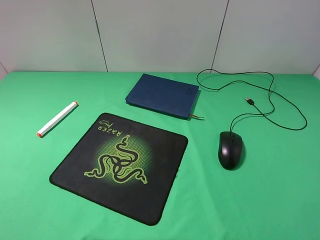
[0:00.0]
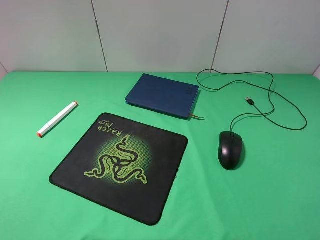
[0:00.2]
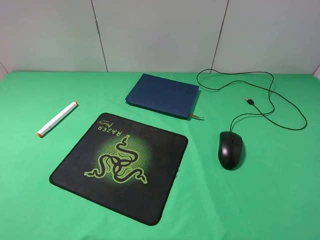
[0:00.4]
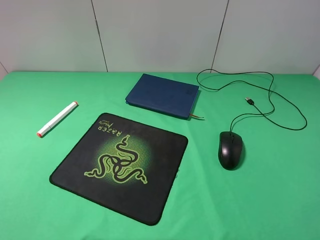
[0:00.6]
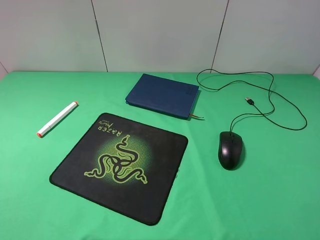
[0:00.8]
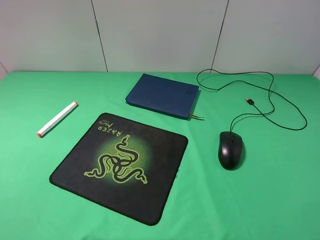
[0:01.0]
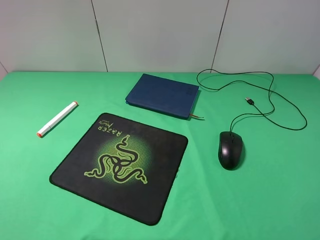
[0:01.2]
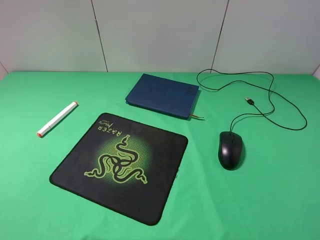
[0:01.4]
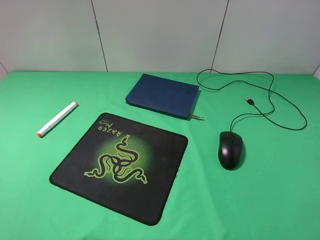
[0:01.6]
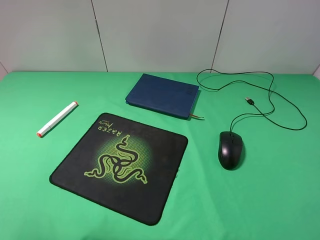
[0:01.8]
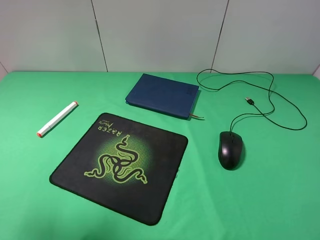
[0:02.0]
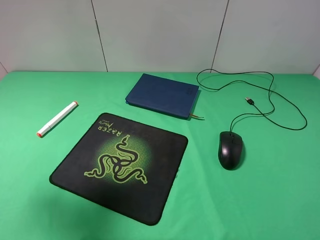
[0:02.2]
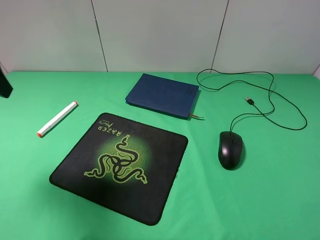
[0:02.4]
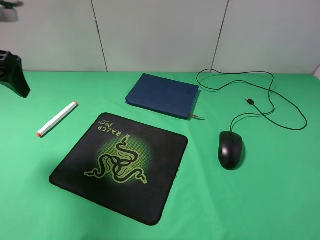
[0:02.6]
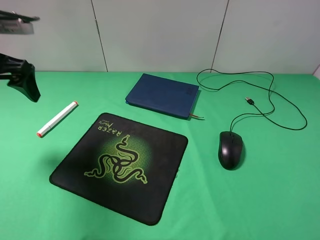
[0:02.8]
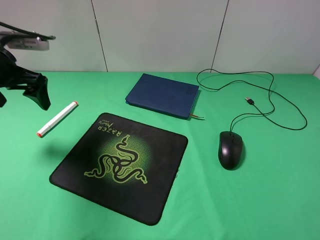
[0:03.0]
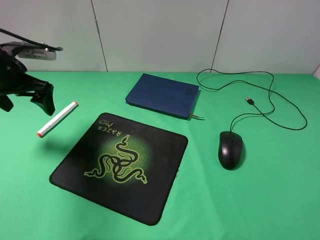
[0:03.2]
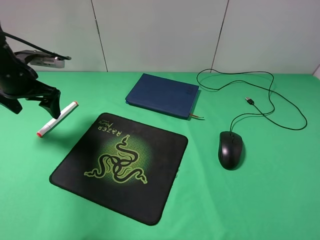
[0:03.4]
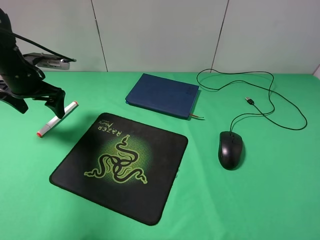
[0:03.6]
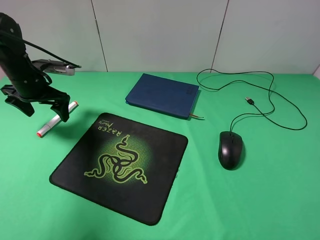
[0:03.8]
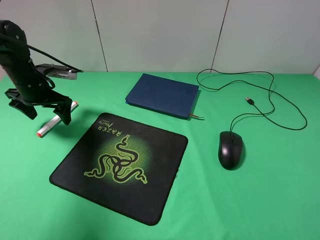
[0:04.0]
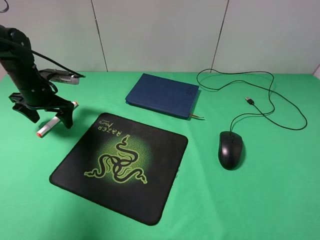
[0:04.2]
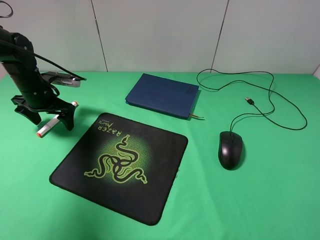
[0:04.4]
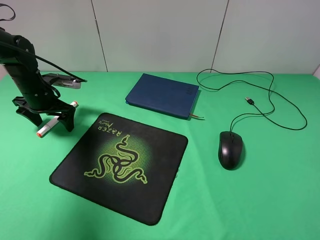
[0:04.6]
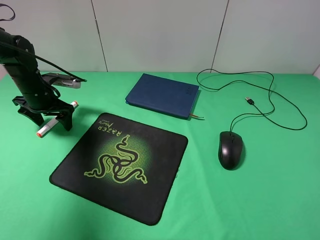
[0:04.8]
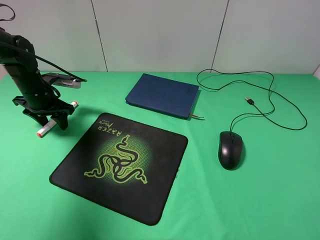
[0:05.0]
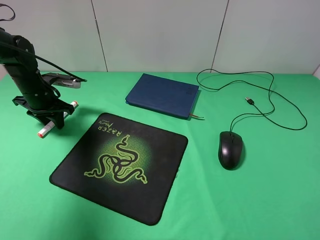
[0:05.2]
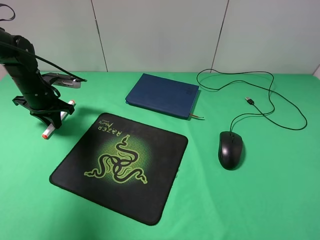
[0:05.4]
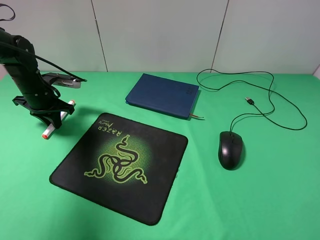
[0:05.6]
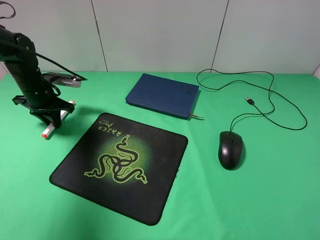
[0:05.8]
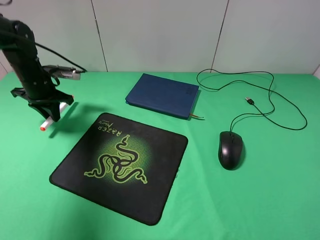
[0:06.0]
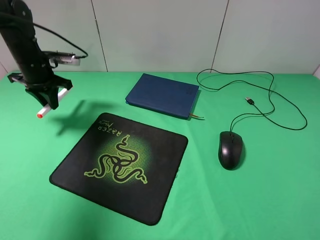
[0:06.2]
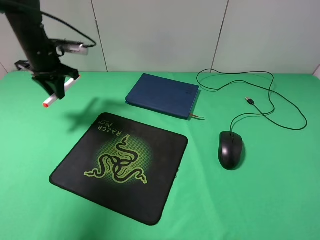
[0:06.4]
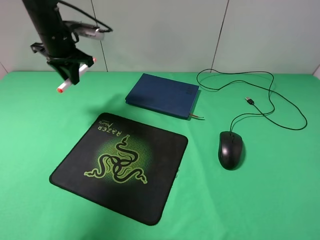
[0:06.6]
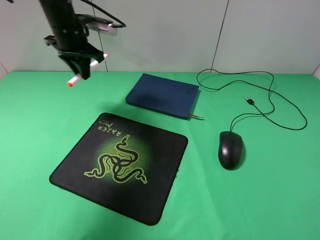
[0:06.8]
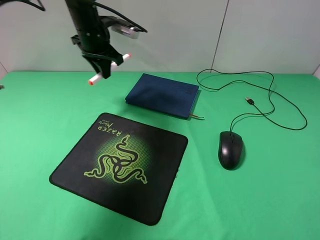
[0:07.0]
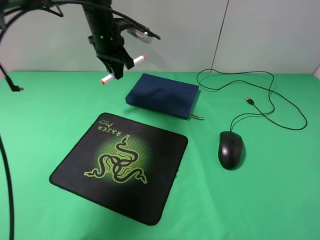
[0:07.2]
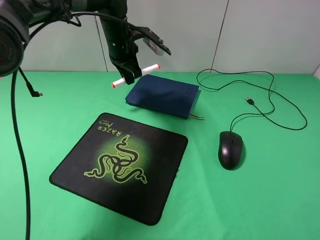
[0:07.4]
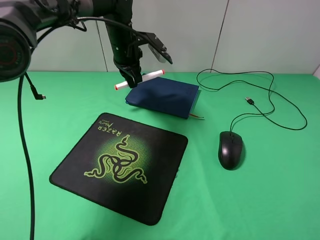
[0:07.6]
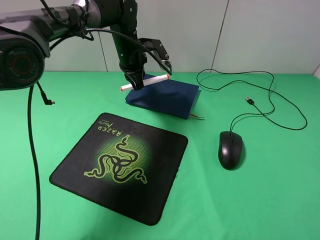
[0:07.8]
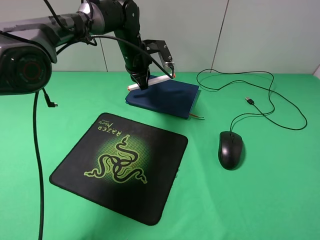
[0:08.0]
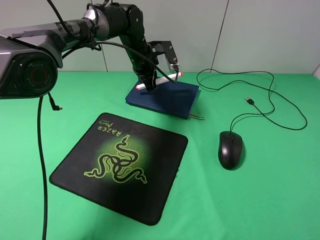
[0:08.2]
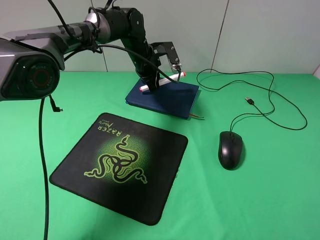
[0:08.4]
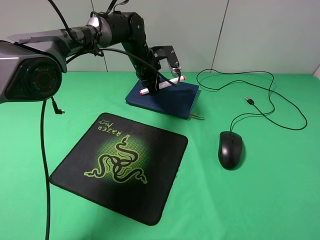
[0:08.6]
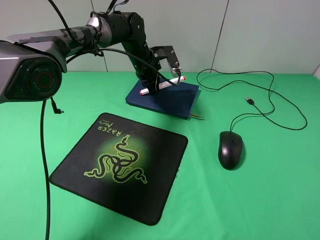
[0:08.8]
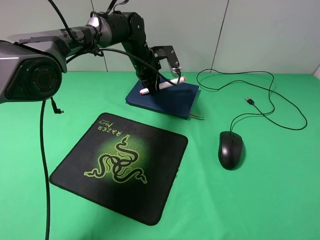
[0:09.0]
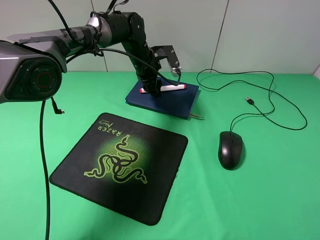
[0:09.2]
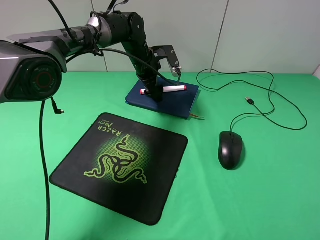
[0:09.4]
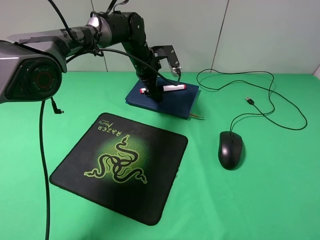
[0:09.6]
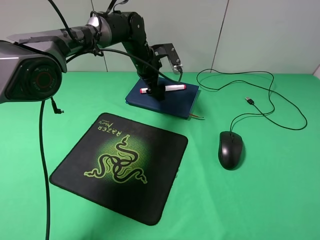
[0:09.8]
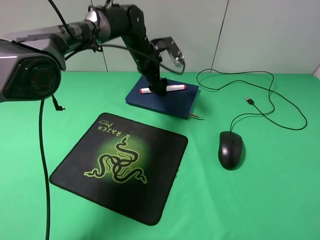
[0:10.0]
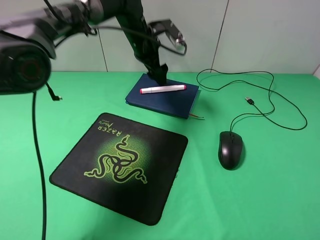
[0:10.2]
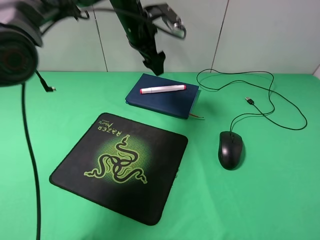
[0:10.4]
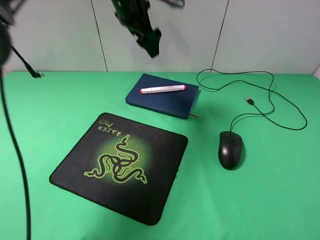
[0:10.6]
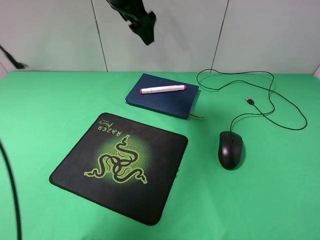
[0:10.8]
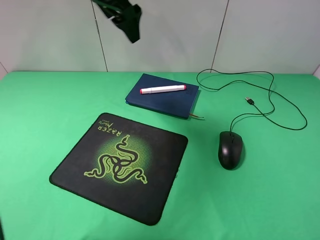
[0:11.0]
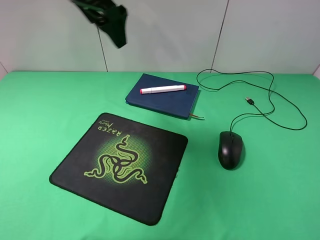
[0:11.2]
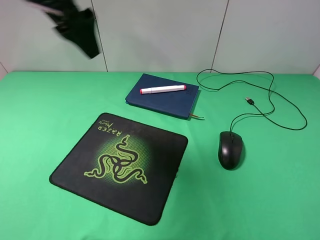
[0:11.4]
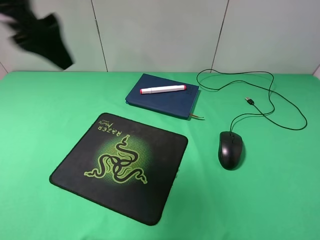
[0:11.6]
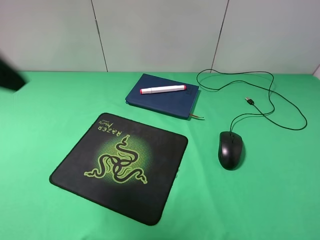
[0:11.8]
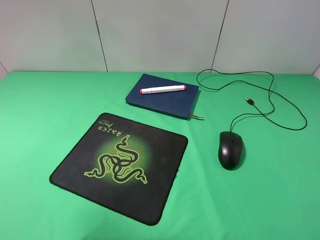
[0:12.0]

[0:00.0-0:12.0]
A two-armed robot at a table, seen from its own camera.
Step, 0:00.0 to 0:05.4: Grasp the marker with the left gripper.
Step, 0:05.6 to 0:09.6: Place the marker on the notebook with the left gripper.
0:01.6 to 0:03.0: The left gripper is displaced forward by about 25 cm.
0:03.0 to 0:04.4: The left gripper heads downward and forward, covering about 15 cm.
0:04.4 to 0:06.0: The left gripper closes up.
0:06.0 to 0:07.6: The left gripper moves to the right, approximately 20 cm.
0:07.6 to 0:09.0: The left gripper goes approximately 5 cm downward.
0:09.0 to 0:10.4: The left gripper goes roughly 10 cm upward, and opens its fingers.
0:10.4 to 0:12.0: The left gripper goes about 40 cm backward and to the left.

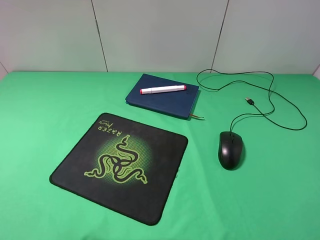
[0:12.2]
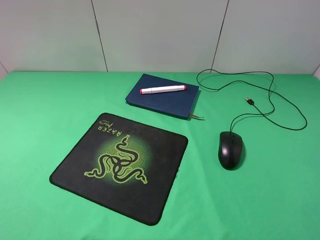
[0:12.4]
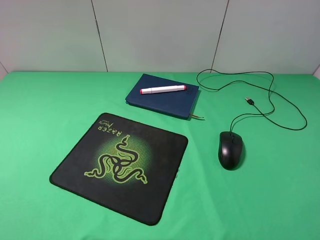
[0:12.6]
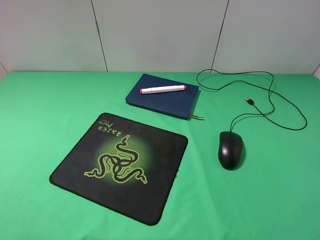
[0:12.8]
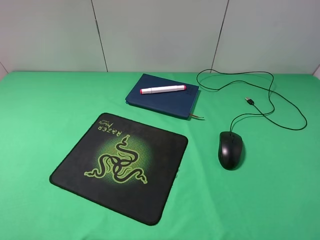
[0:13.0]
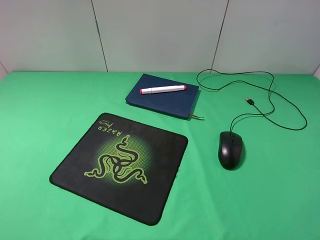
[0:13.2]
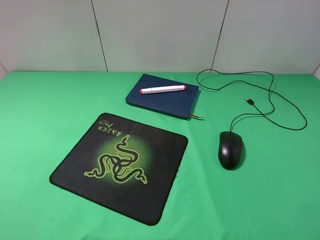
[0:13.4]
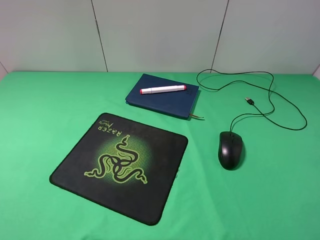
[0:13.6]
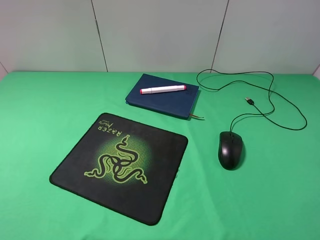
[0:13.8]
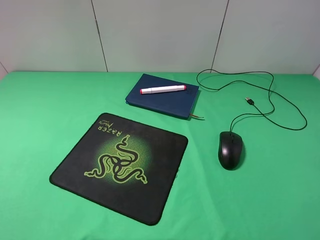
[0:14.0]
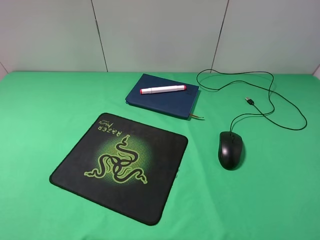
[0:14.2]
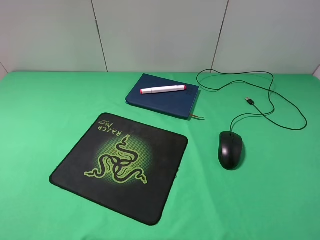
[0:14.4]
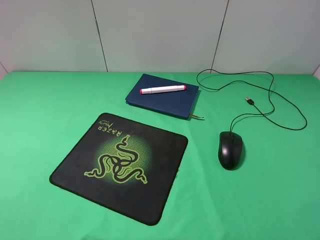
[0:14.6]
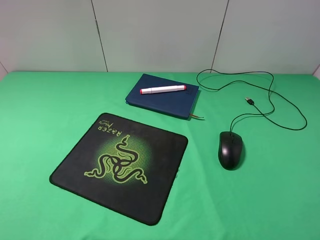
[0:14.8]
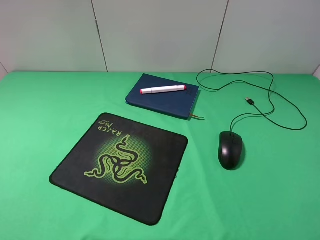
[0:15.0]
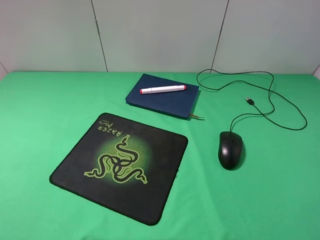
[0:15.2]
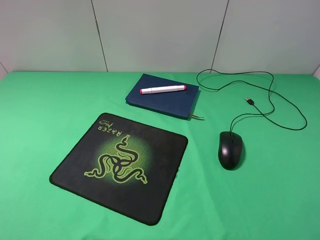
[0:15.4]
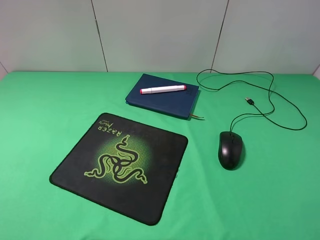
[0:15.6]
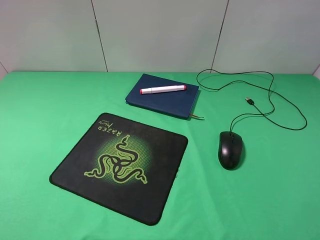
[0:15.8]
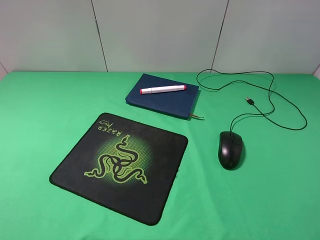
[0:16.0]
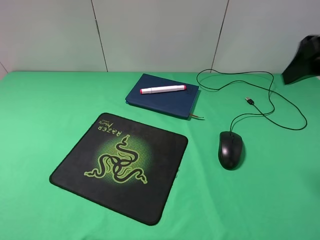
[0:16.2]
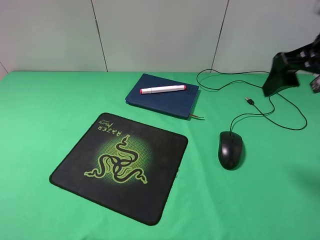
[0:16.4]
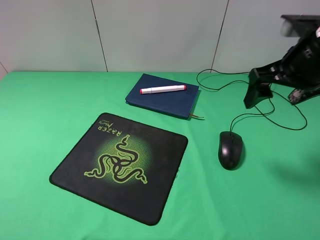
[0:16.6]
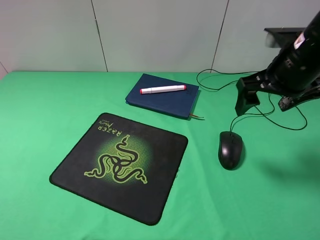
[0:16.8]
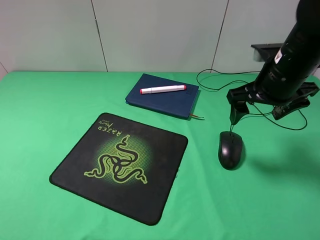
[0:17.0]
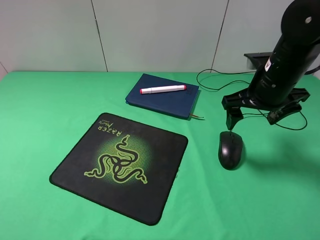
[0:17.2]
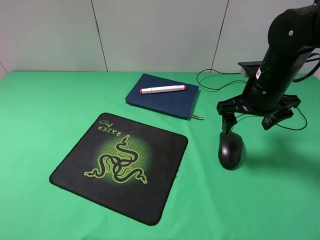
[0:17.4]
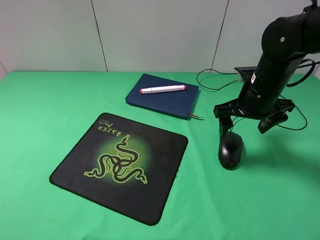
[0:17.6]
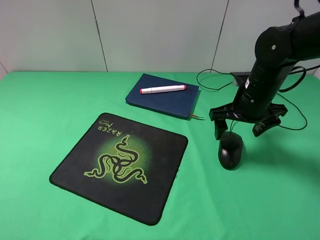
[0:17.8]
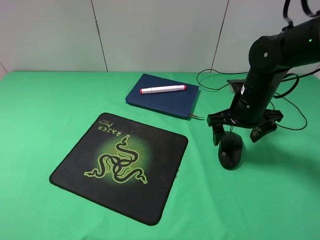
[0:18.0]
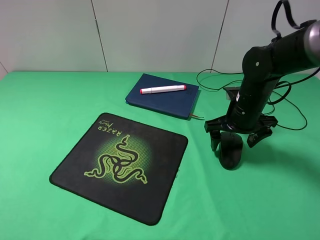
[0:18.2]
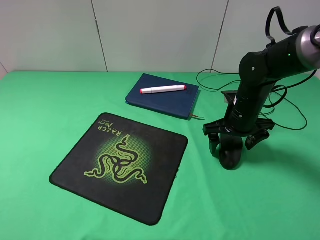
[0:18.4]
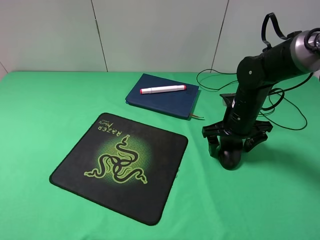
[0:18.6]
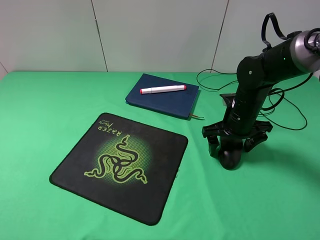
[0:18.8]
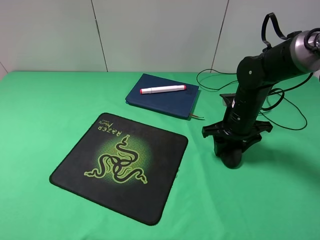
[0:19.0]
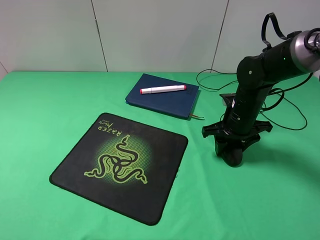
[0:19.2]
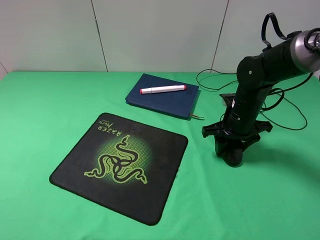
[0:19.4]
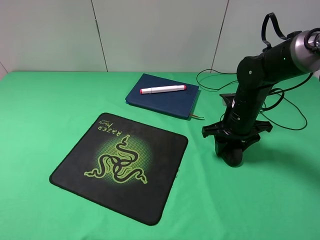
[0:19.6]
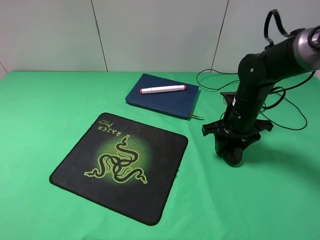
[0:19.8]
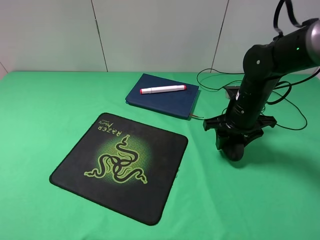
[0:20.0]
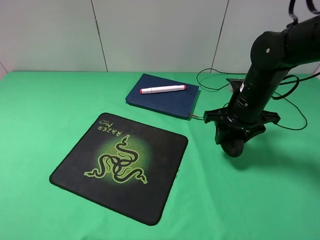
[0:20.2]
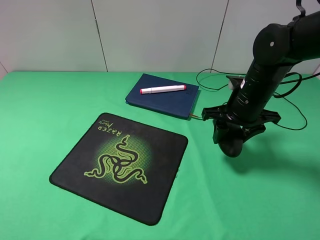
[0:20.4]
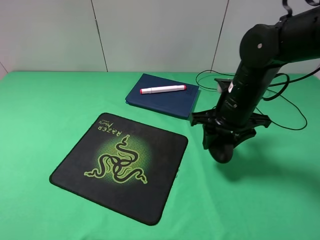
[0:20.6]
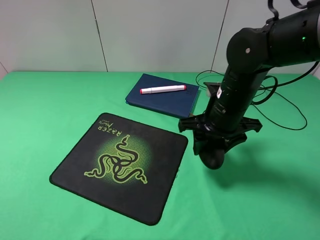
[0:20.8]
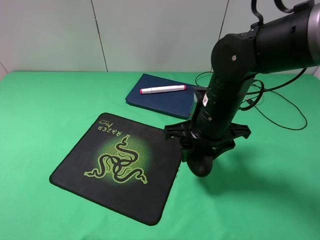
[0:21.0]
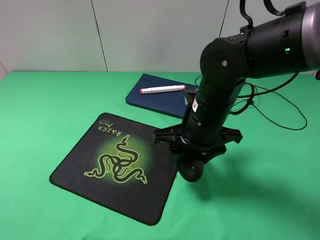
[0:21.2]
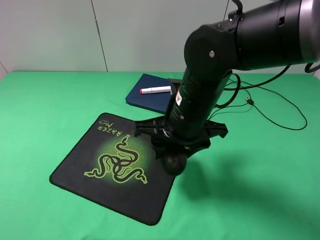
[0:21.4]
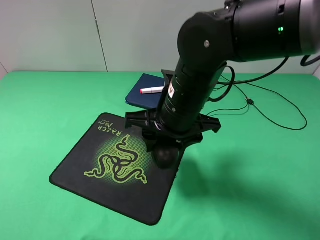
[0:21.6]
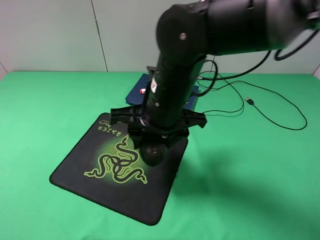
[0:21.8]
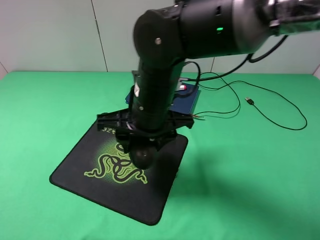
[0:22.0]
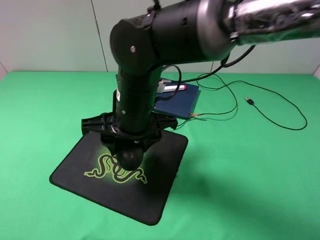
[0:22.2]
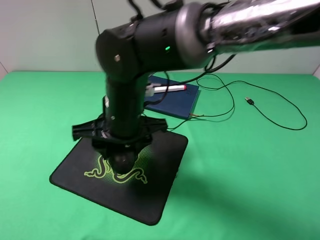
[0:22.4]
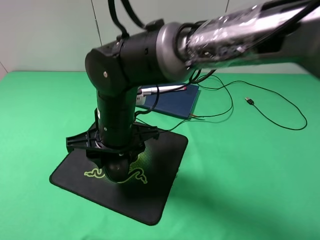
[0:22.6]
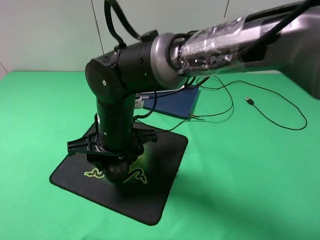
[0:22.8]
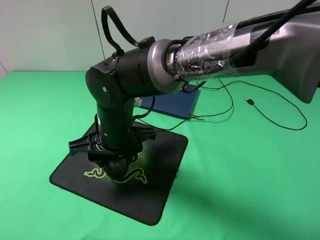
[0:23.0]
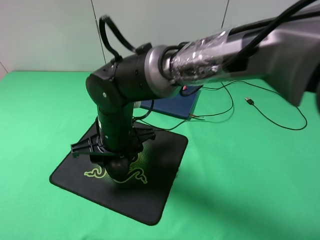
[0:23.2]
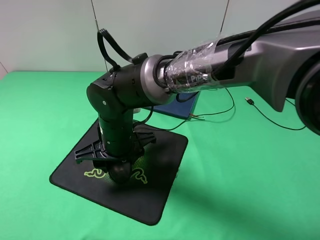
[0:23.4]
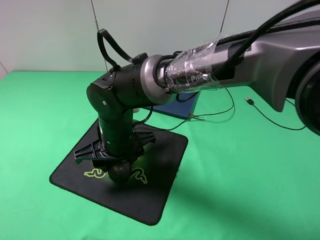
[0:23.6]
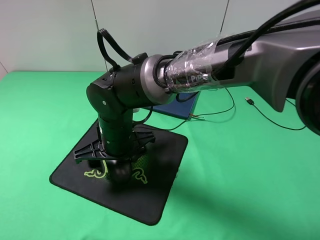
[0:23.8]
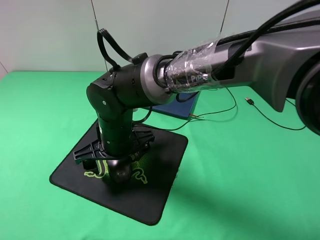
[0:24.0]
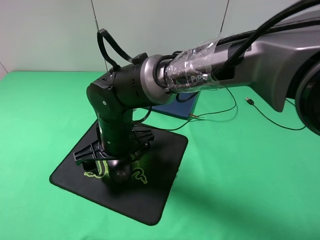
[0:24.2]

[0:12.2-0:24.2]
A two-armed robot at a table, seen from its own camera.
Step, 0:12.2 to 0:19.2: Grasp the mouse with the right gripper.
0:13.8 to 0:15.2: Both grippers stay put.
0:15.2 to 0:16.6: The right gripper moves forward, approximately 25 cm.
0:16.6 to 0:18.2: The right gripper is displaced downward by about 15 cm.
0:18.2 to 0:19.8: The right gripper closes.
0:19.8 to 0:21.2: The right gripper is displaced to the left, backward and upward by some 15 cm.
0:21.2 to 0:22.6: The right gripper is displaced to the left by roughly 15 cm.
0:22.6 to 0:24.2: The right gripper opens up.
